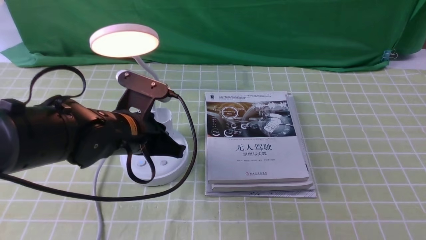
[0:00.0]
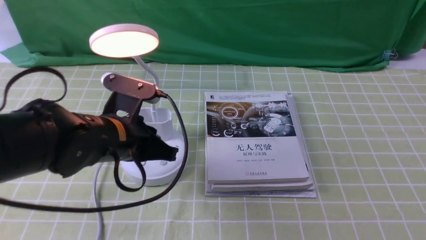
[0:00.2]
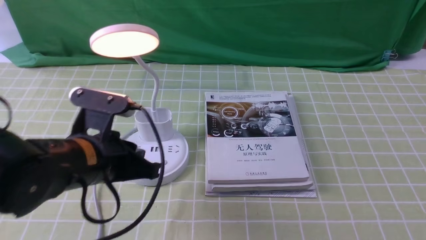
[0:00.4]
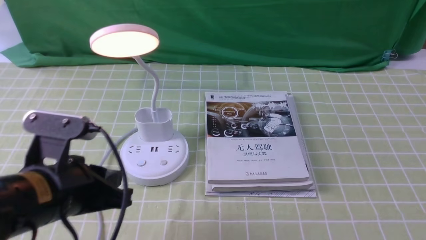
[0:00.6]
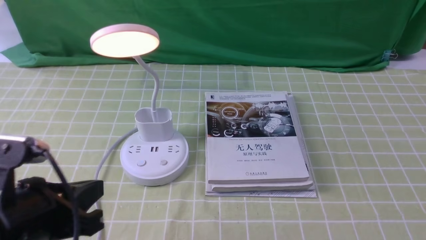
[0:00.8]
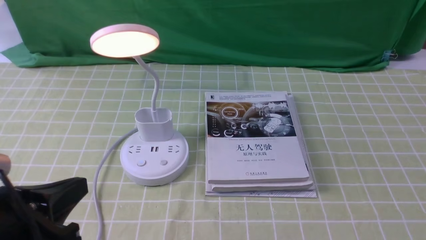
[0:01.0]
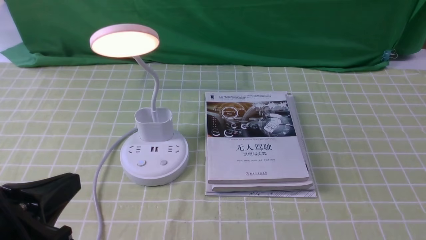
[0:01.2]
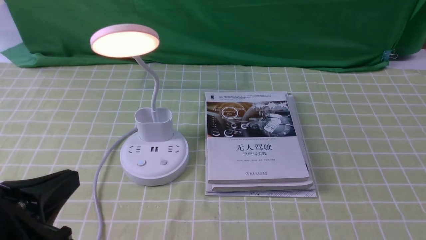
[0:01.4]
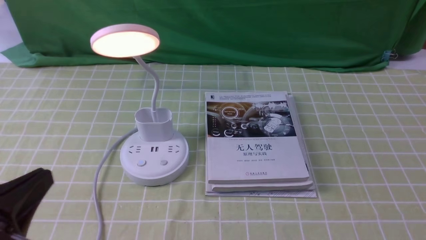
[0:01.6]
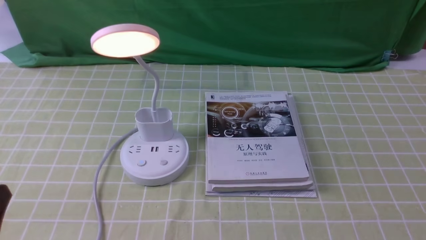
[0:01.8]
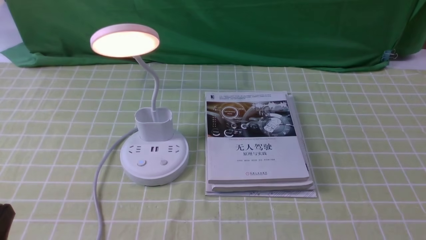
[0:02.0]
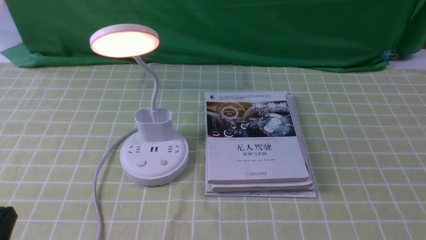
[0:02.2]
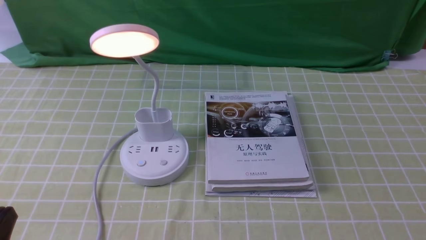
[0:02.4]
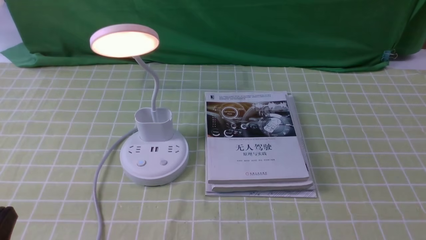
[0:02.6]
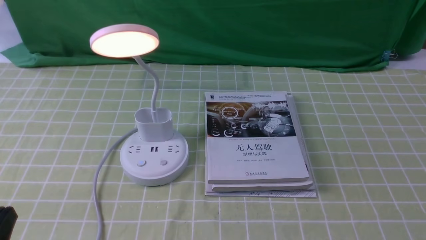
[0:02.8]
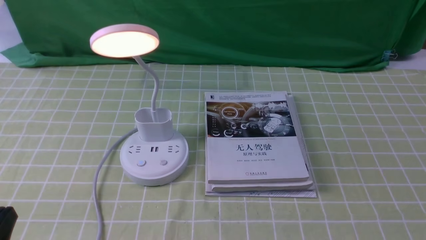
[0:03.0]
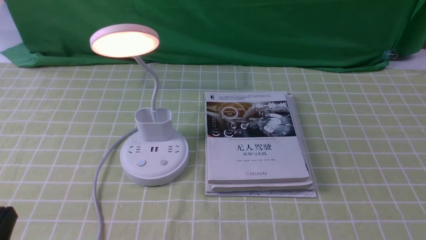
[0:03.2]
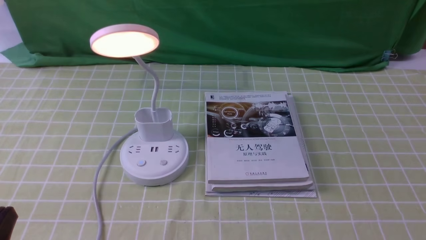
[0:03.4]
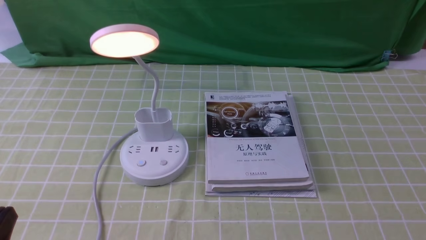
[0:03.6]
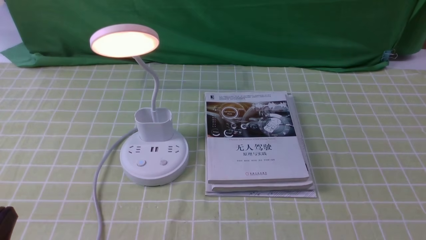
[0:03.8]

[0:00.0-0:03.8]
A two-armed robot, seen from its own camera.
0:00.0 to 0:01.2: The left gripper shifts about 20 cm backward and to the left, and opens up.
0:01.2 to 0:02.6: The left gripper is displaced downward by roughly 5 cm, and opens up.
0:02.6 to 0:03.8: Both grippers stay put.
